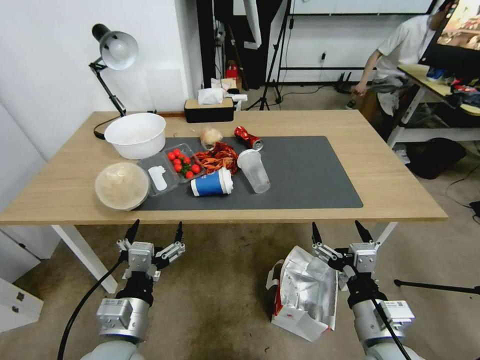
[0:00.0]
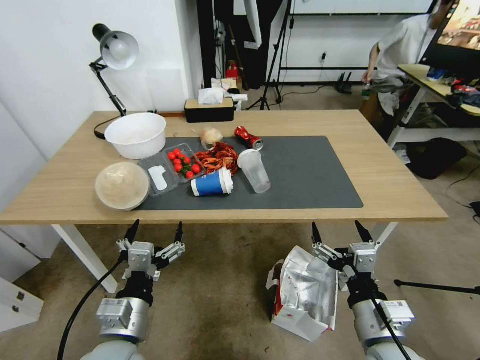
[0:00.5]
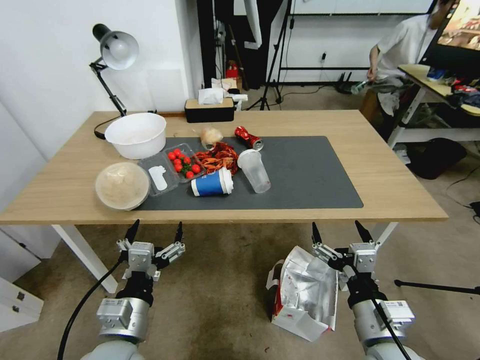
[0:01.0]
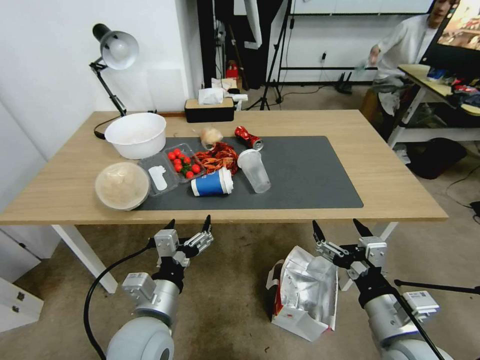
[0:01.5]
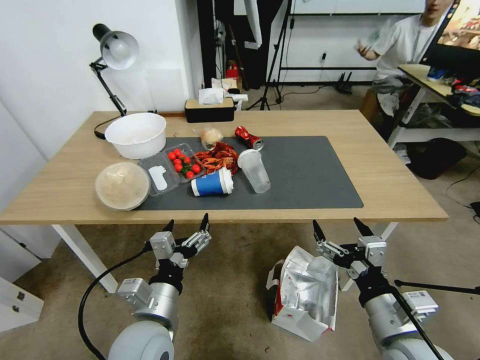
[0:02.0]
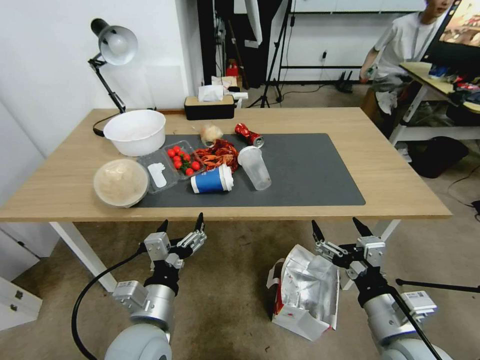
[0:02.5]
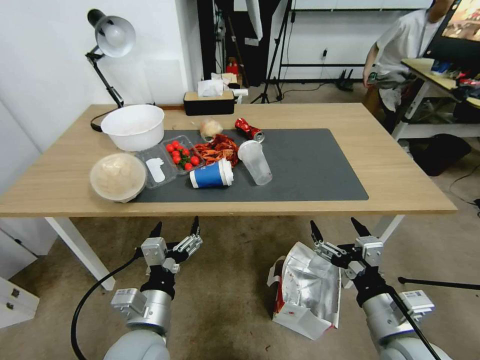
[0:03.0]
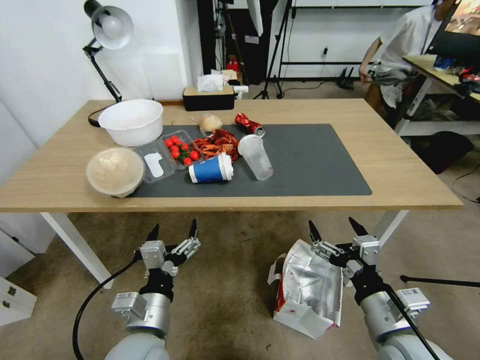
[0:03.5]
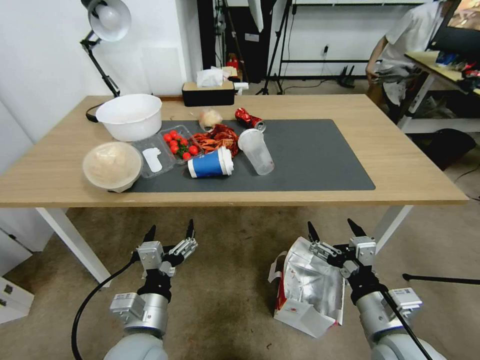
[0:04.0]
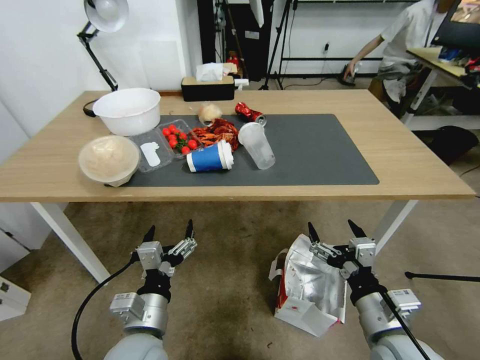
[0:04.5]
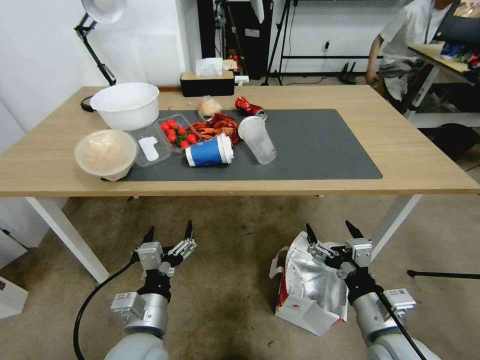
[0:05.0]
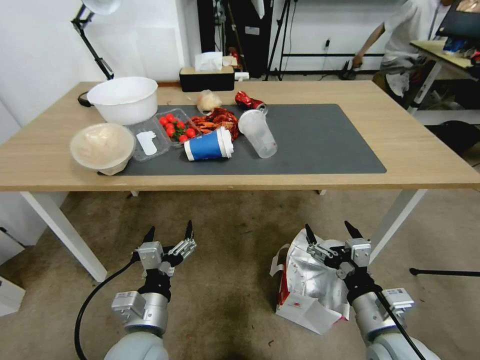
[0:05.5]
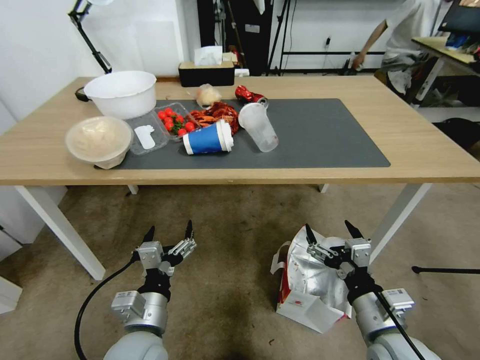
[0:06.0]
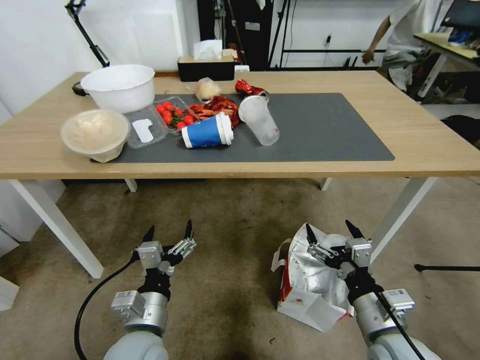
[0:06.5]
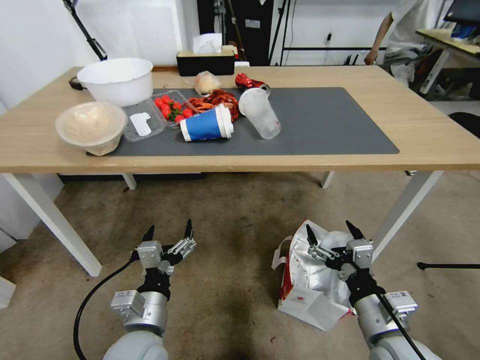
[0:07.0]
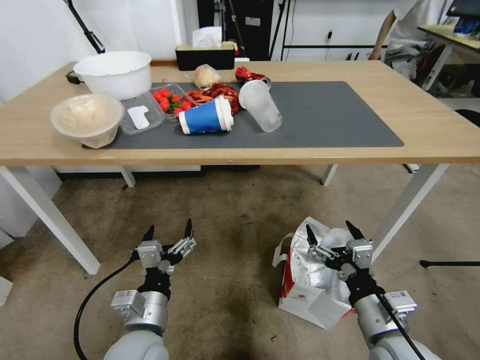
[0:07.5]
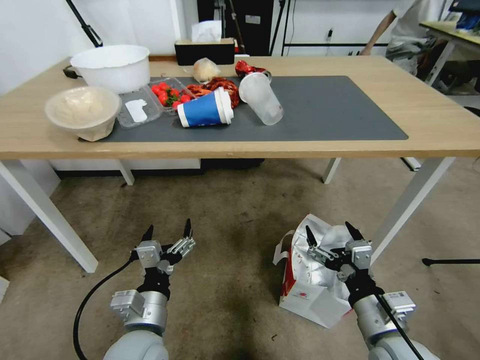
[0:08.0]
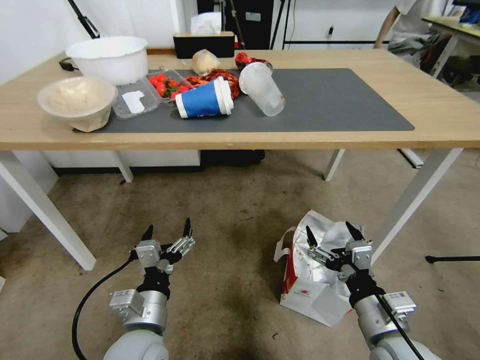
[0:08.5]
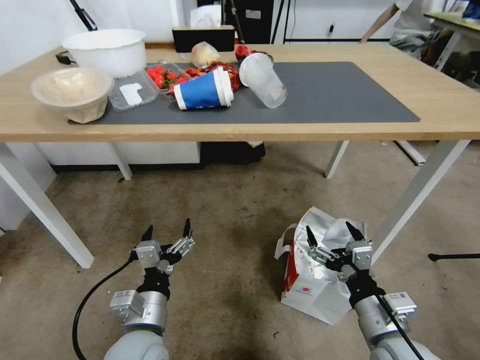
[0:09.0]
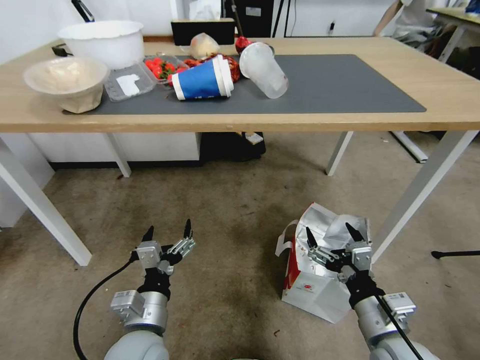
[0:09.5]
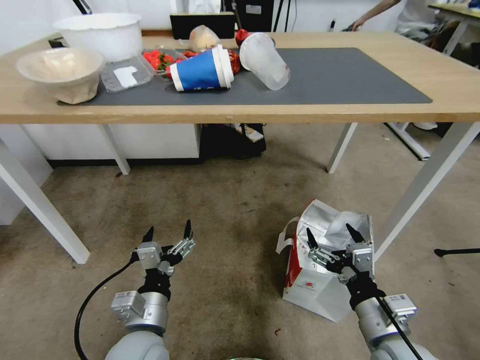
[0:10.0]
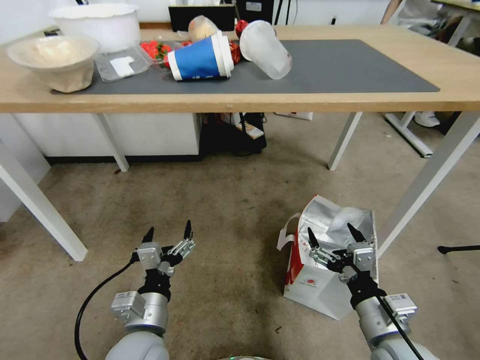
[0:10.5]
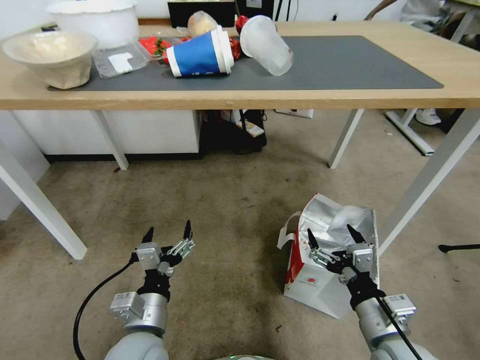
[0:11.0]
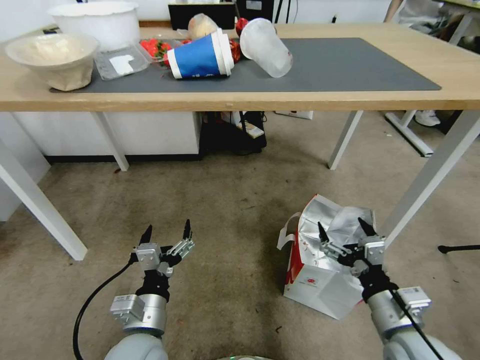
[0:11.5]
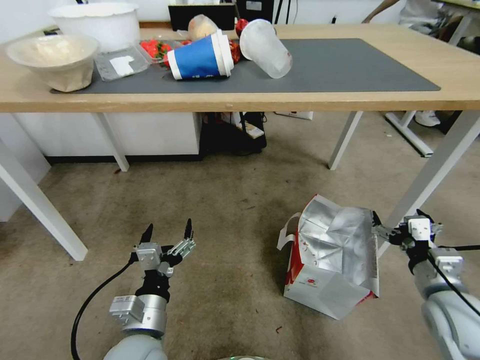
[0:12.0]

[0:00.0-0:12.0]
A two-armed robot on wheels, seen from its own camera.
Task of the whole recording: Pick up the food delivery bag from the floor and place it on the table.
0:10.0 to 0:12.0: The right gripper goes approximately 15 cm to the right and forward.

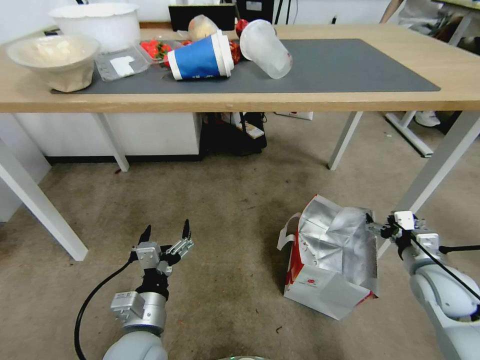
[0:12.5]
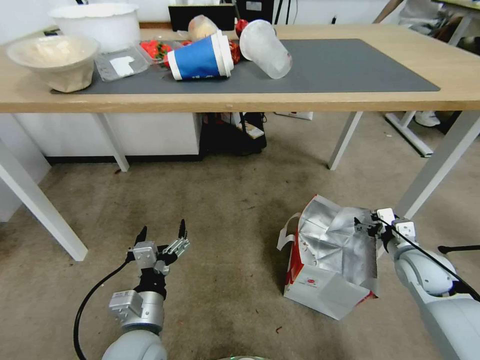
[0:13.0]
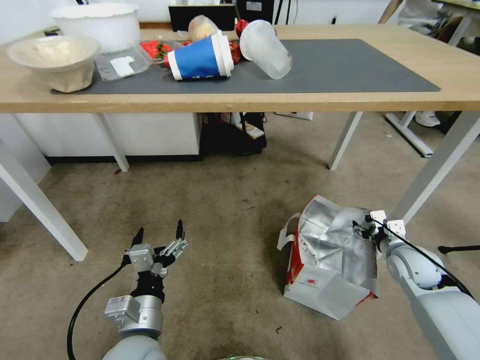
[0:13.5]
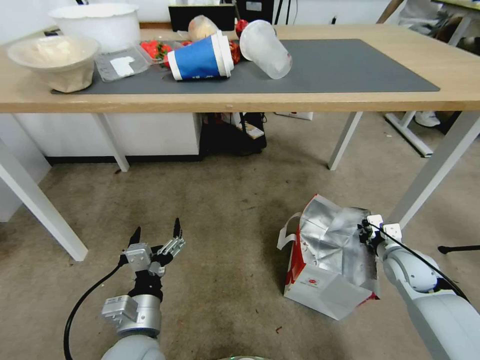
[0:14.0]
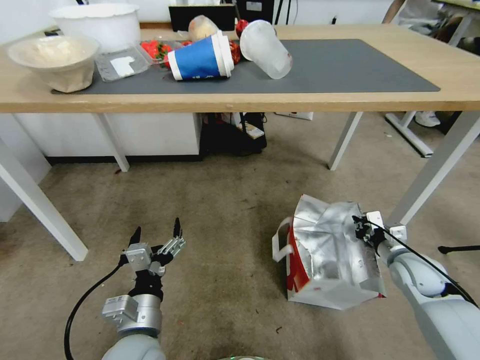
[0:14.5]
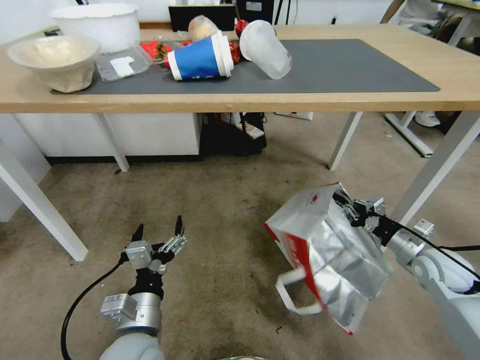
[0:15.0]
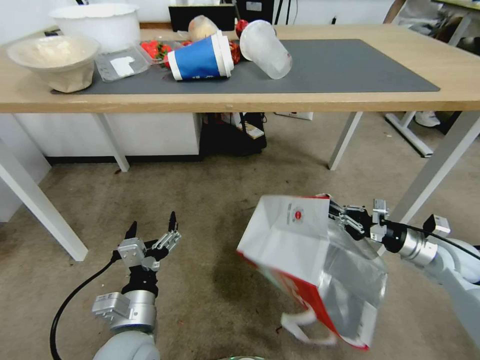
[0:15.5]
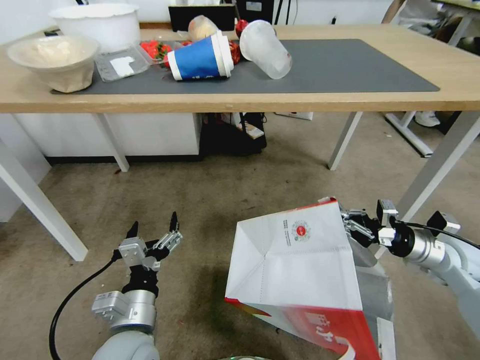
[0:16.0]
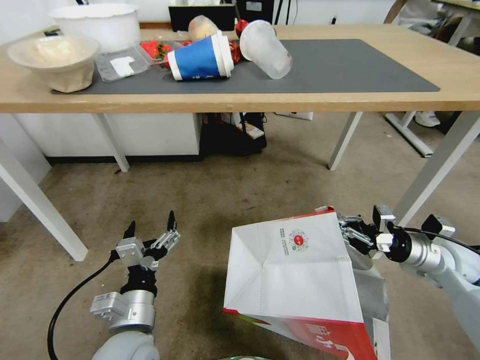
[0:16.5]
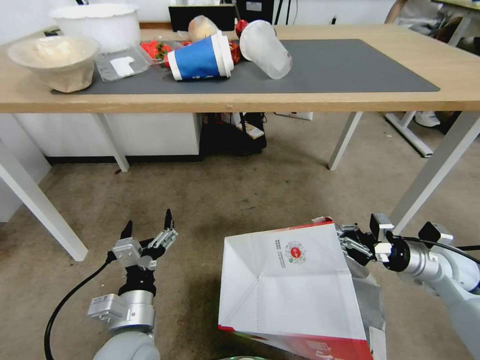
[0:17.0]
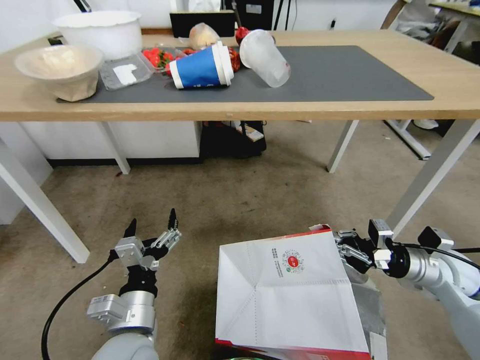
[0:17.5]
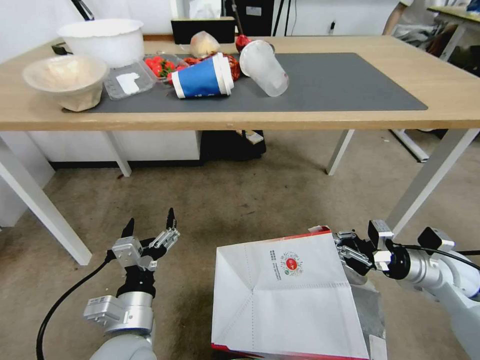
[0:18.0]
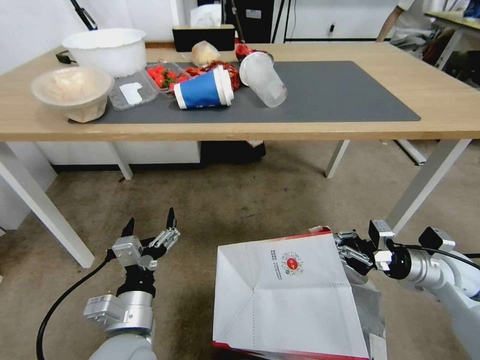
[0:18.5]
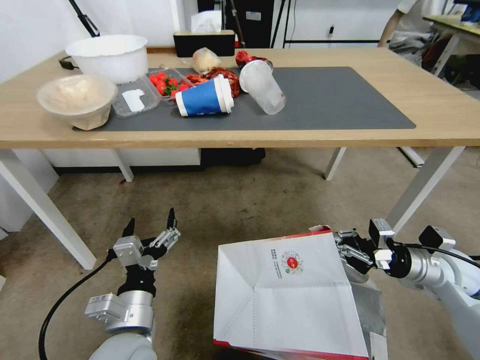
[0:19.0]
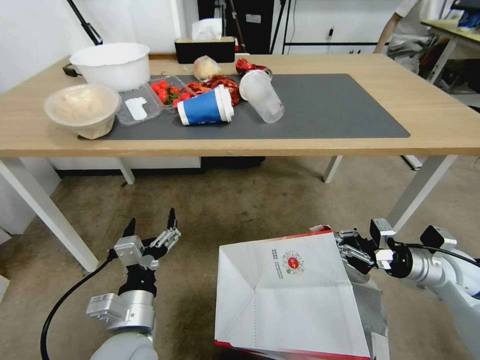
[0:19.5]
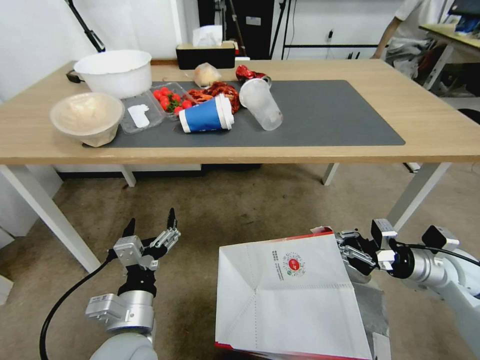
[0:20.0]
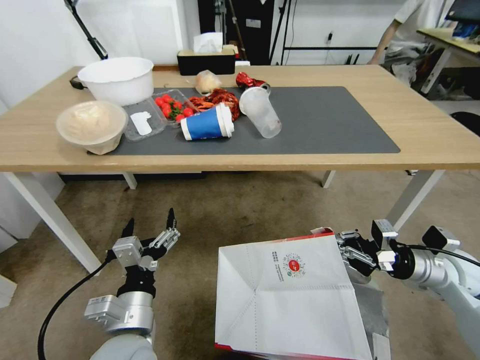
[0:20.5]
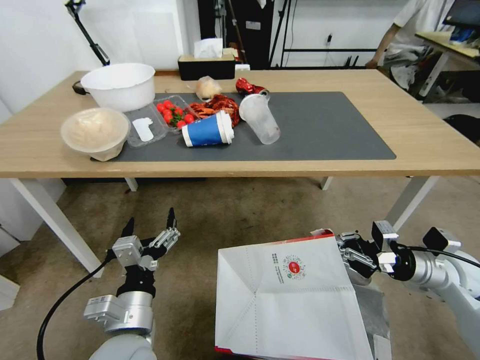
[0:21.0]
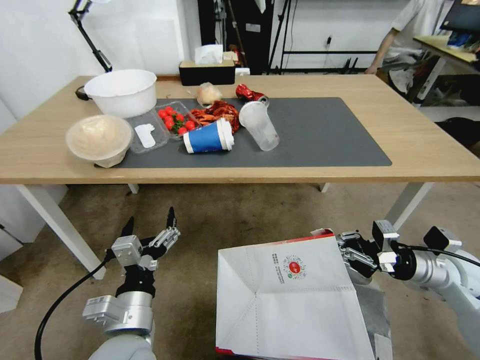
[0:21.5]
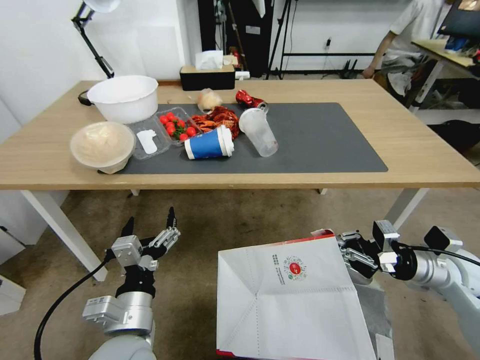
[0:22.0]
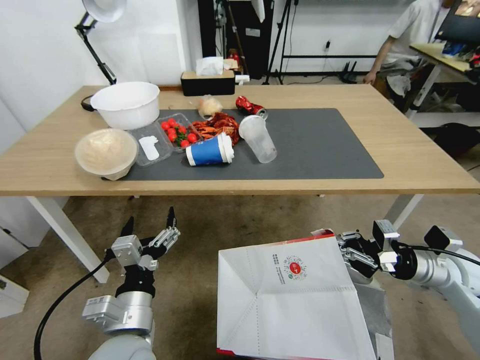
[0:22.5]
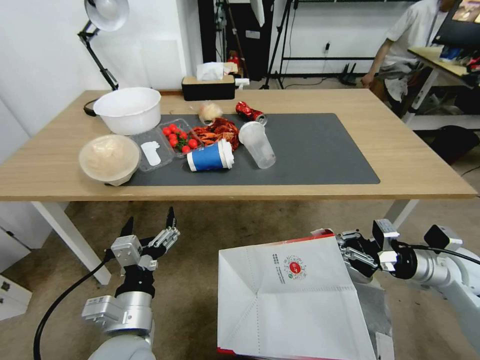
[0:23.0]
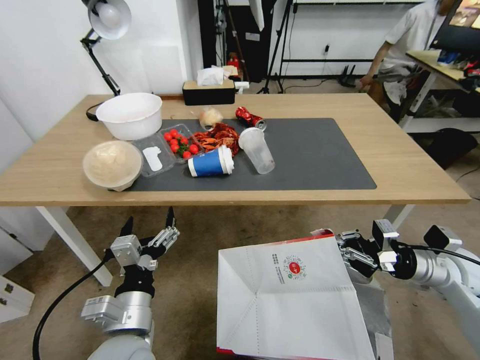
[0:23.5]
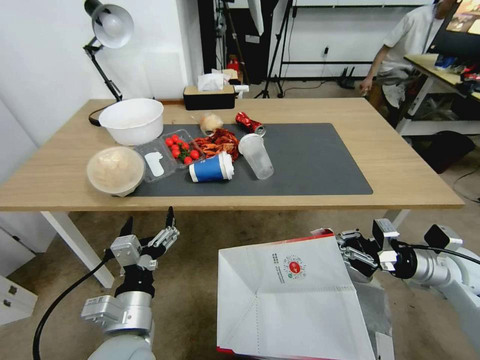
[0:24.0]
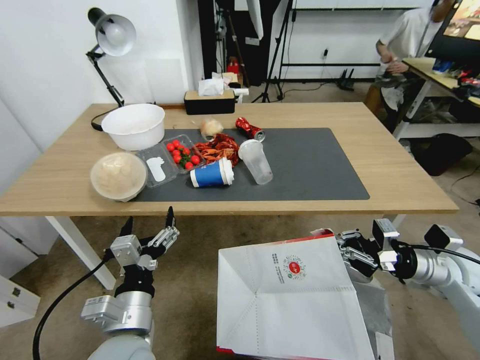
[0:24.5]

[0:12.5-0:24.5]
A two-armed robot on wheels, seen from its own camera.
Task of the whole recording: Pick up the food delivery bag from the floor and place it on the table.
0:12.5 to 0:14.5: The right gripper ends up about 5 cm from where it was, and closes up.
0:14.5 to 0:16.5: The right gripper moves upward, some 5 cm.

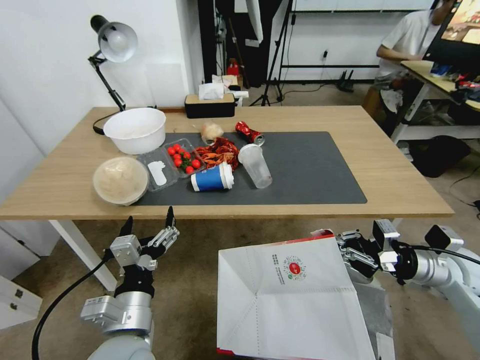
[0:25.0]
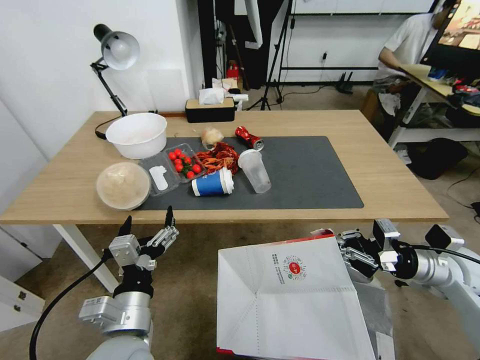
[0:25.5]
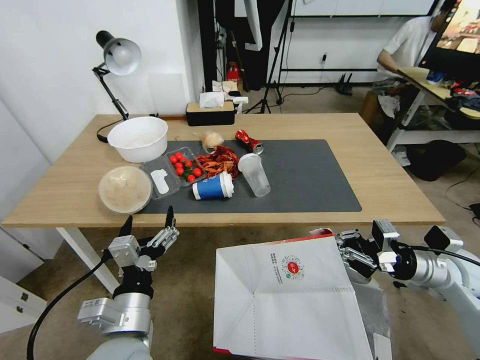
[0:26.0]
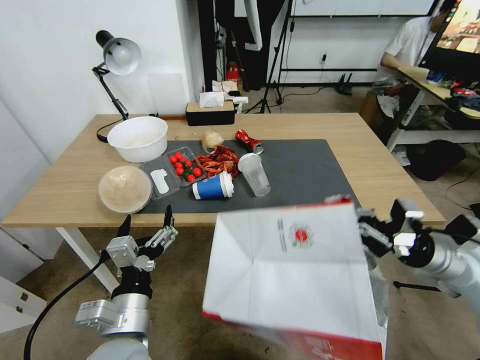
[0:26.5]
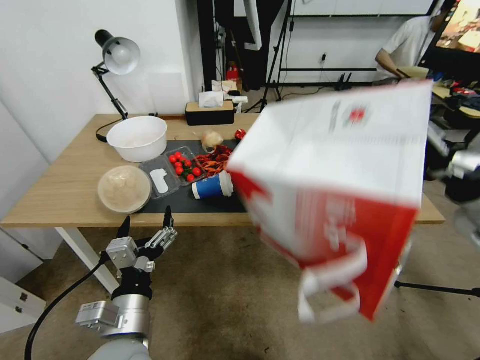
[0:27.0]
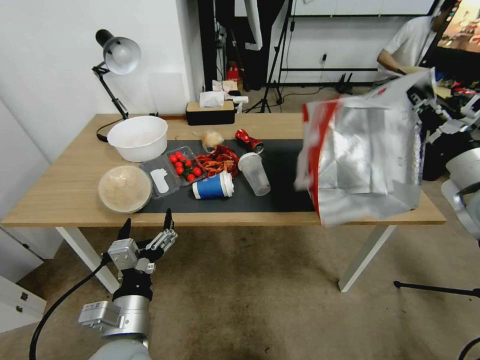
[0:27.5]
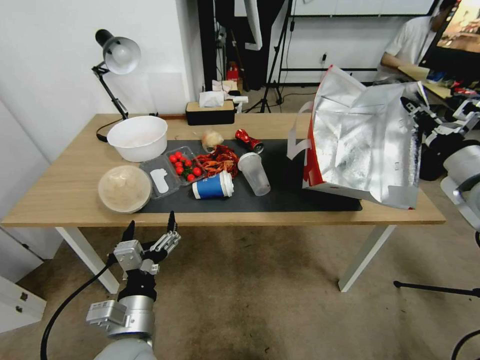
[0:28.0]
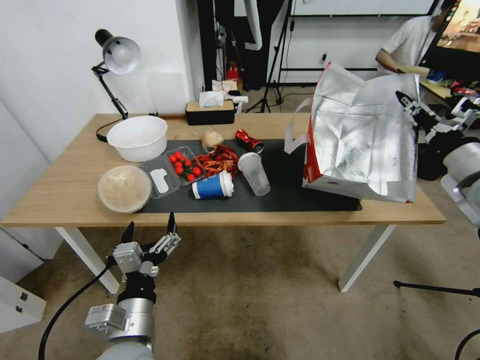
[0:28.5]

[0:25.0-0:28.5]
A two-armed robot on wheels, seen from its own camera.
Task of the whole recording: Pick up the food delivery bag from the floor and place it on the table.
0:25.0 to 0:27.0: The right gripper heads upward, covering some 15 cm.
0:27.0 to 0:28.5: The right gripper is displaced forward by roughly 5 cm.
